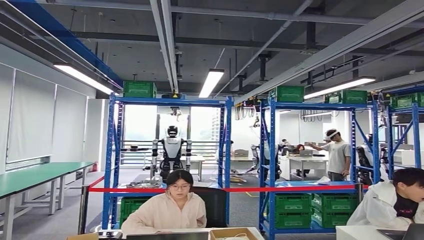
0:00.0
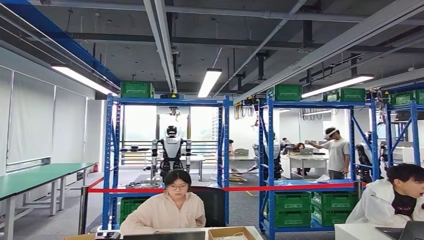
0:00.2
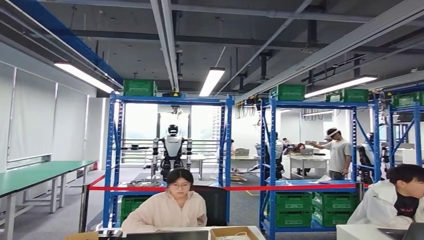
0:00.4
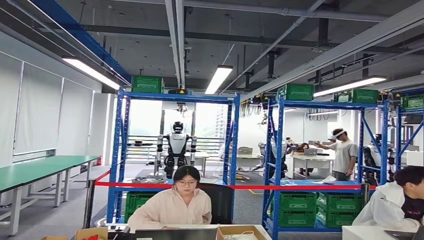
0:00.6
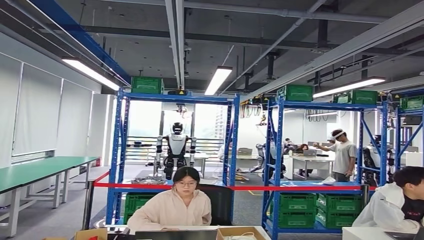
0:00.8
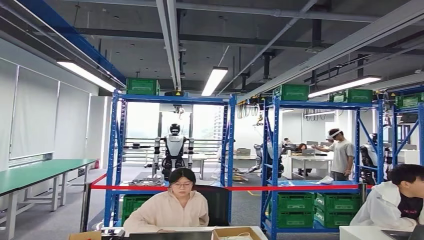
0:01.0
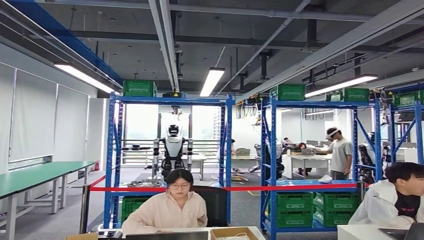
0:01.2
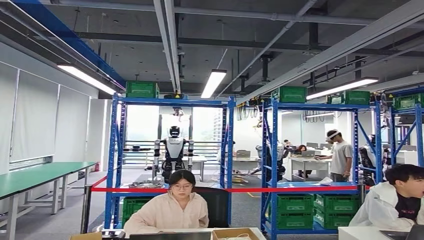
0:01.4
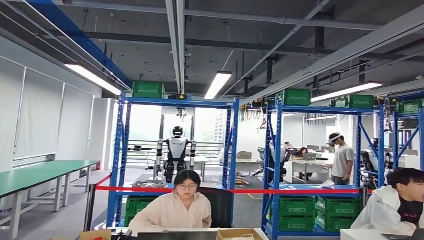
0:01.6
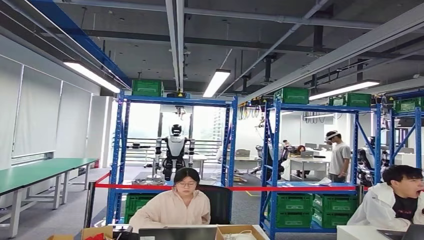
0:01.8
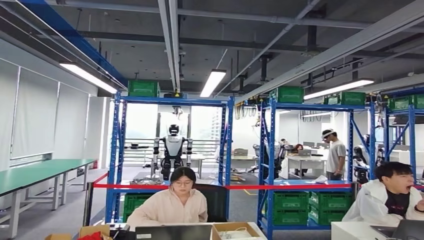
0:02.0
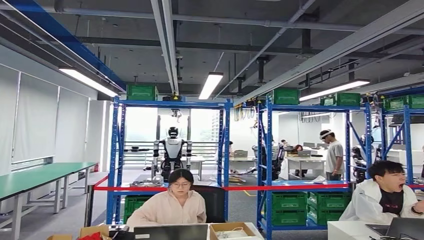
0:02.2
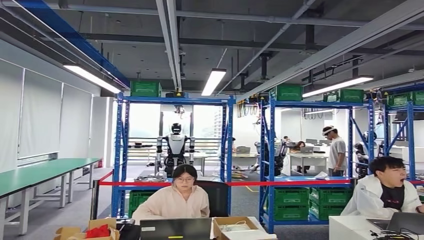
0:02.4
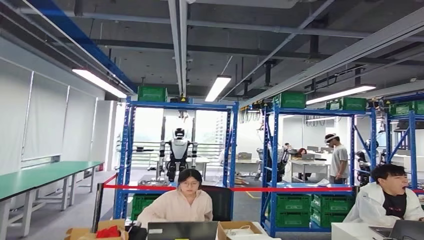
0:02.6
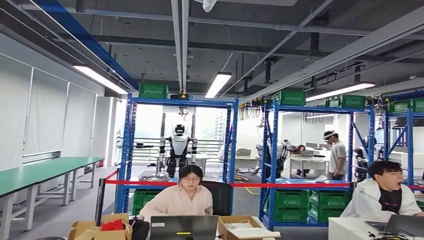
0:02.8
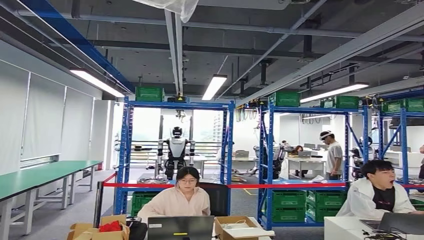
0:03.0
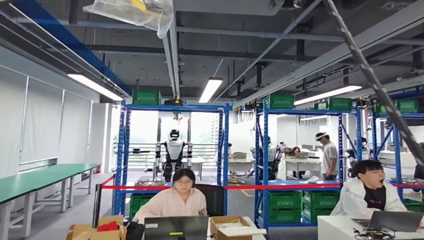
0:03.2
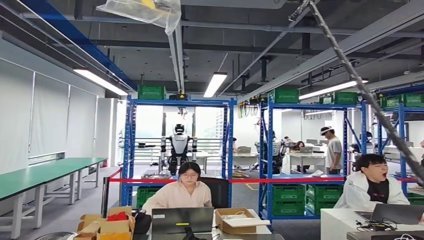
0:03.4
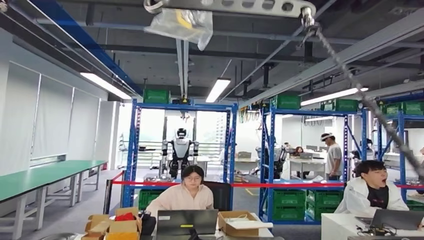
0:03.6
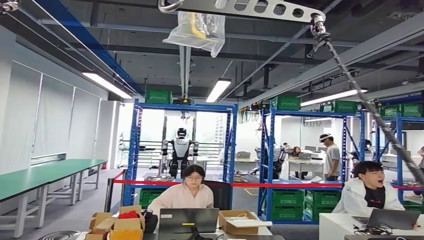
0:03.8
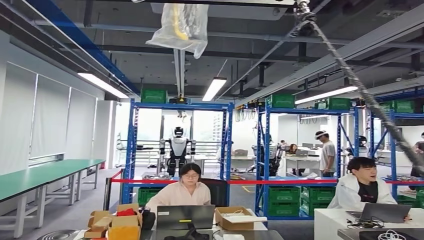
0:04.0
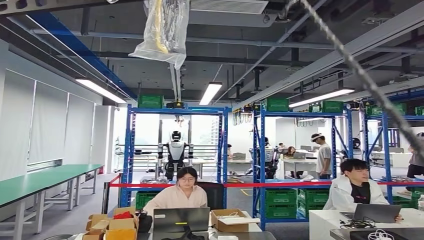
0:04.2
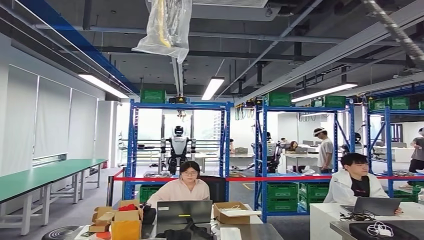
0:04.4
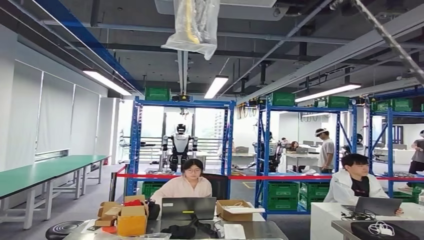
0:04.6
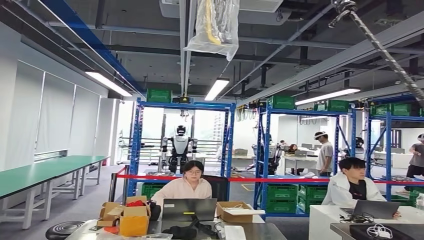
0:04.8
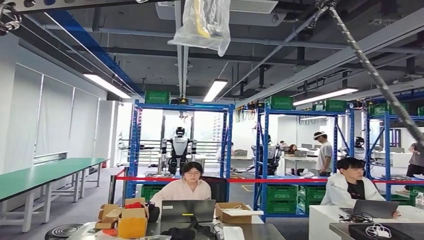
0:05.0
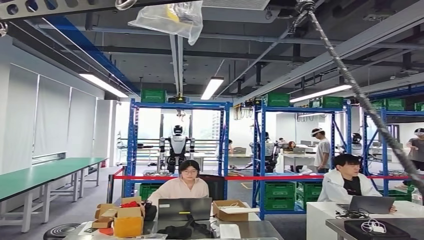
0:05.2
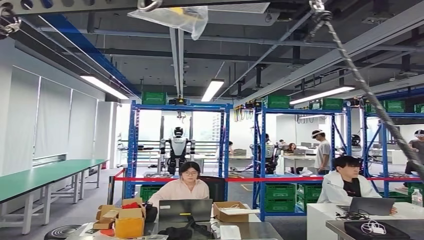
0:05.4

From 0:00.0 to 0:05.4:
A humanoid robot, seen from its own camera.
Step, from 0:00.0 to 0:01.2: Insert the small component into the corresponding slot on the workbench.
Step, from 0:01.4 to 0:05.4: Return to the initial position at the workbench.
